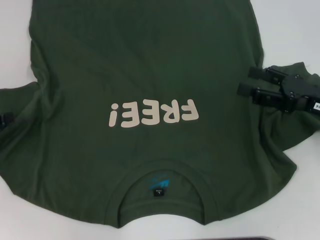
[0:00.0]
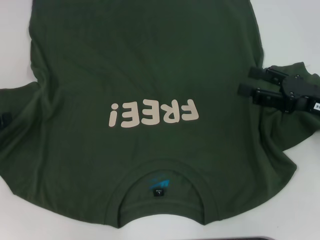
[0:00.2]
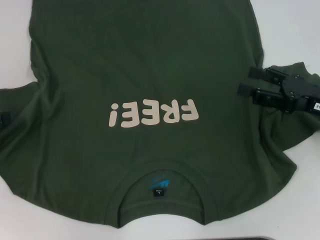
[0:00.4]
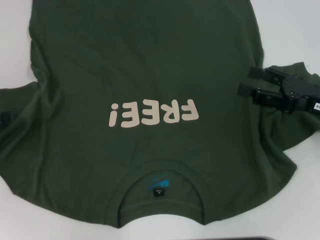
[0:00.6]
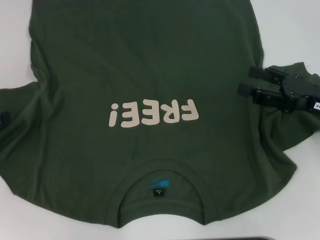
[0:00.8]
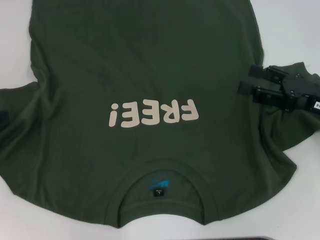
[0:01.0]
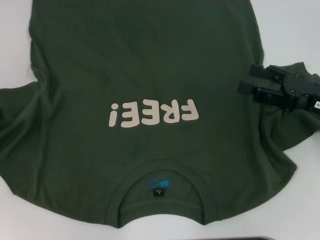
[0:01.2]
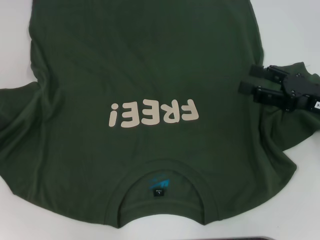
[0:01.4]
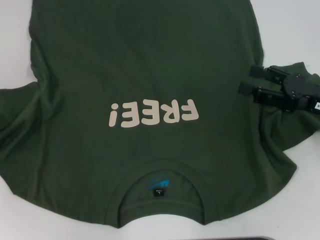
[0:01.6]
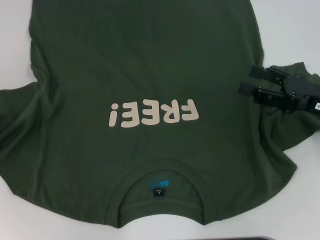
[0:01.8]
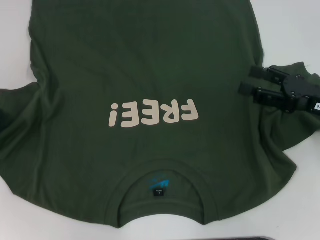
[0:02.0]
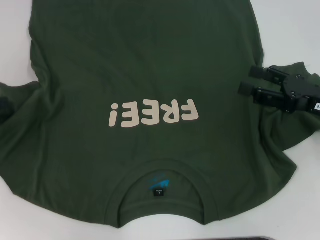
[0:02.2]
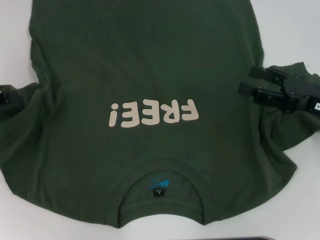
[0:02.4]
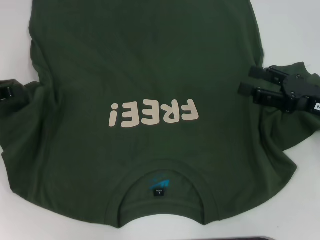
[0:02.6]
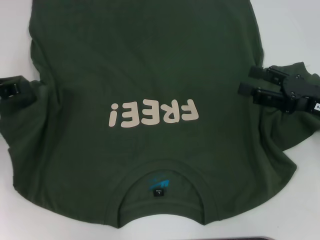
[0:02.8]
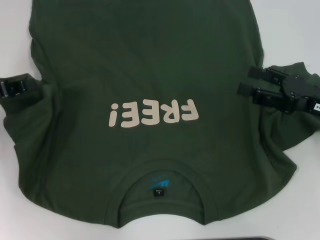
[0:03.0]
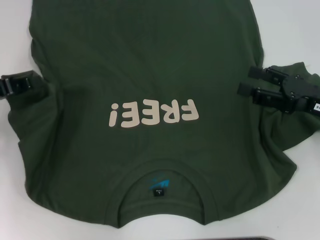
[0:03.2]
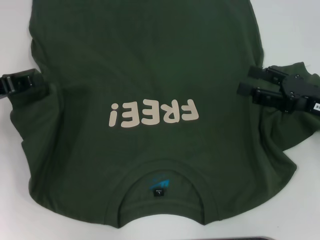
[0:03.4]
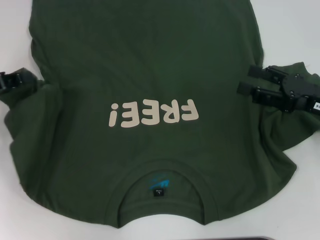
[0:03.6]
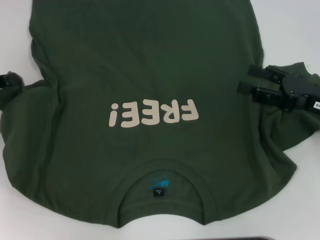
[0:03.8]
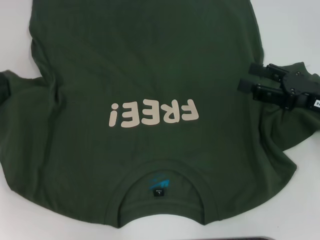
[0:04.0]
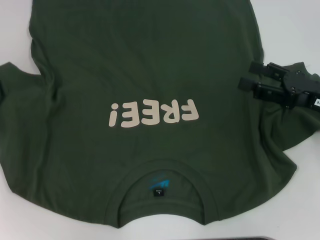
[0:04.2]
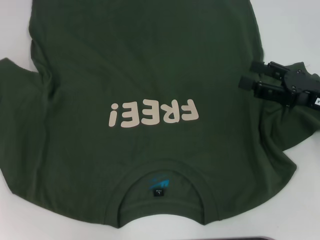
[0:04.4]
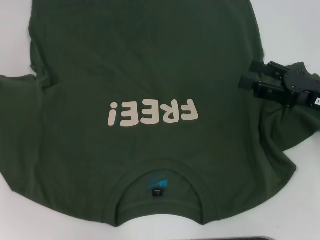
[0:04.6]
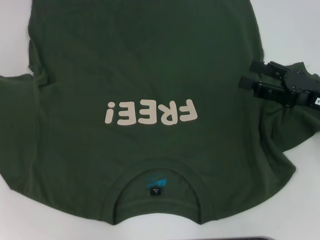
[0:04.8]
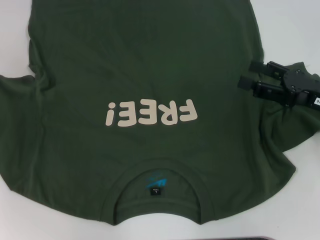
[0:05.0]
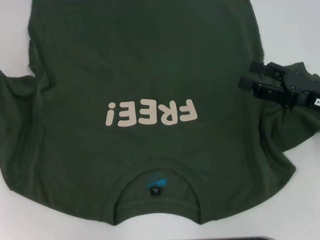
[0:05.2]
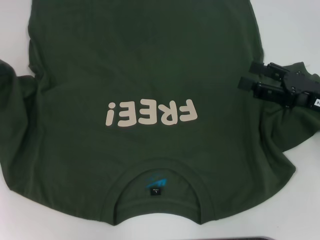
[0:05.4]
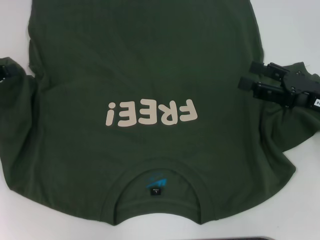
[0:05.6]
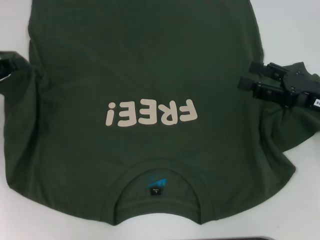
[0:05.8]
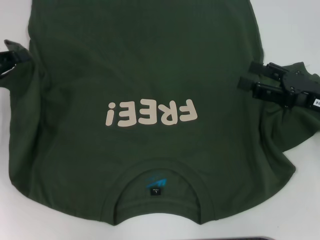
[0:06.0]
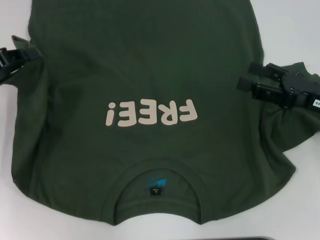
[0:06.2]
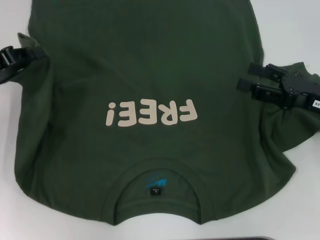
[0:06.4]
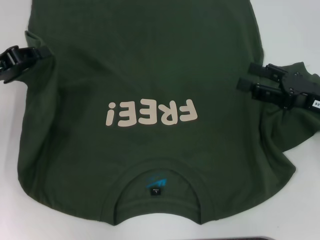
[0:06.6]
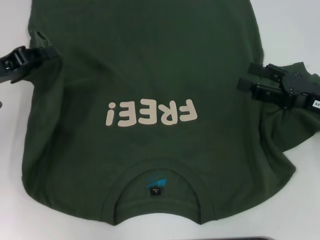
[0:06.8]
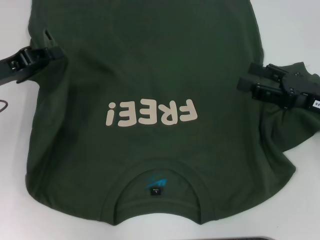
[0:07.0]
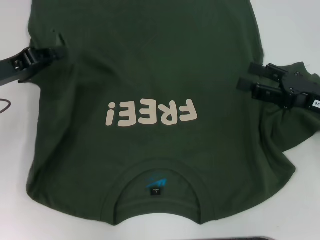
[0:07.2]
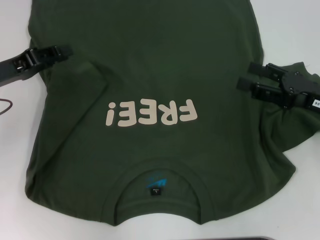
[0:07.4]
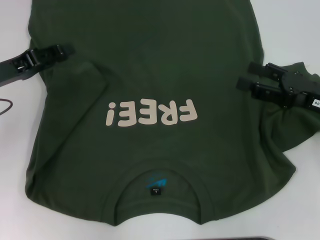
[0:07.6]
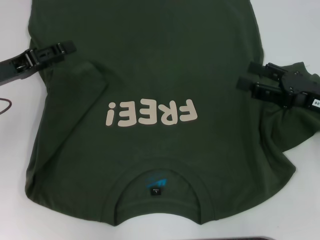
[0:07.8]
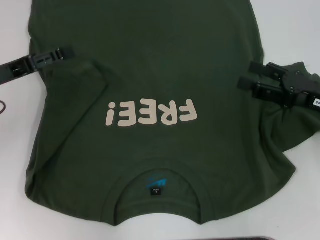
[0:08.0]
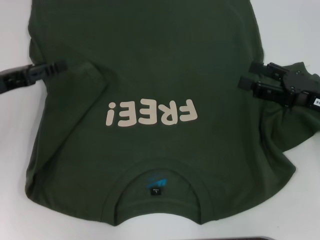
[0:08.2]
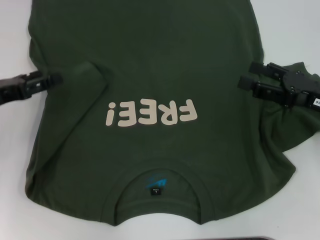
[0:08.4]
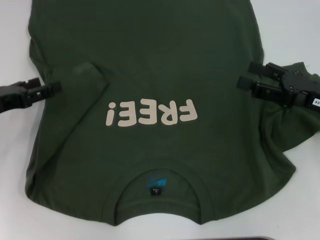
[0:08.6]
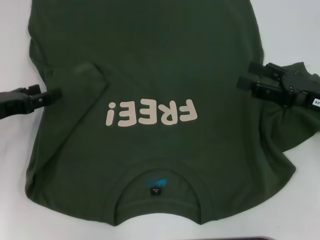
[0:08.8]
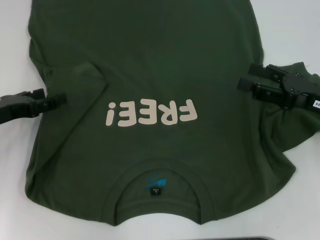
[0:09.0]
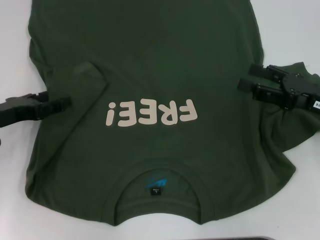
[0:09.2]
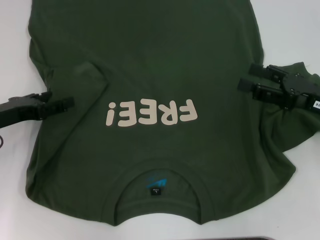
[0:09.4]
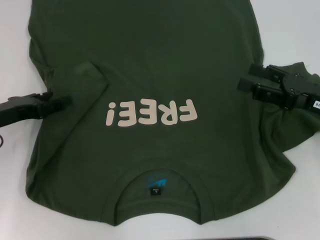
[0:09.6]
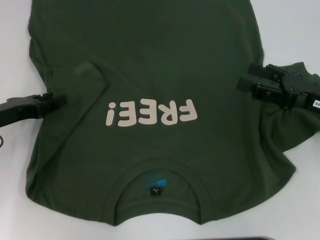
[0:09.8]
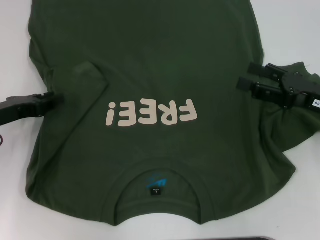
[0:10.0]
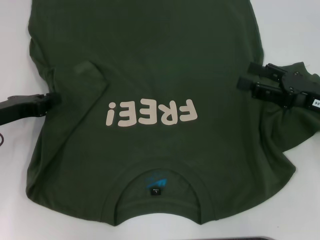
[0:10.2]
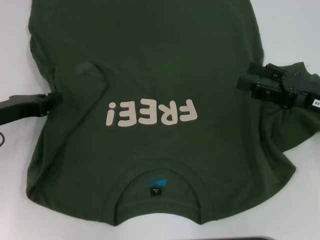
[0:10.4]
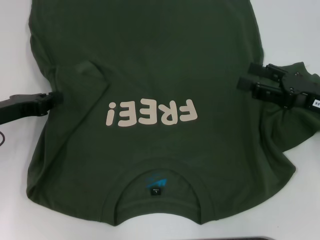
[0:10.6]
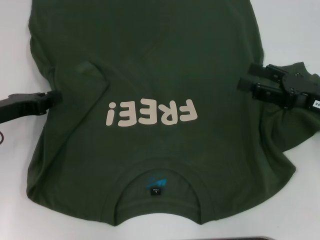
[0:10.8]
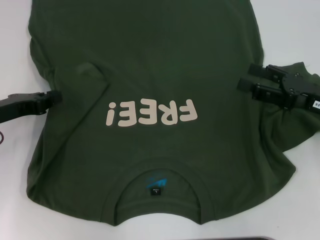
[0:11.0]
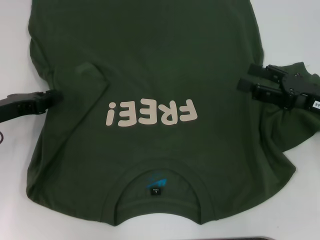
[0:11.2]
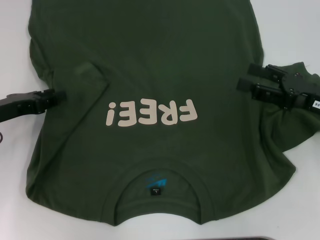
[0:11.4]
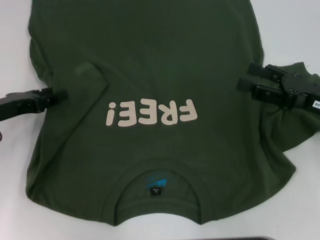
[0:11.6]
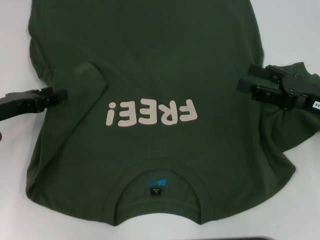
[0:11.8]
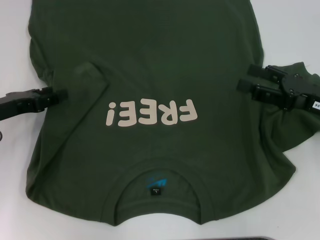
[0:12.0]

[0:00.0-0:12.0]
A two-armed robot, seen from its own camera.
0:01.6 to 0:03.0: The left gripper ends up approximately 5 cm from where it was.
0:06.0 to 0:07.6: The grippers stay close to where they were, moving slightly.
0:07.6 to 0:09.0: The left gripper moves some 5 cm, and opens its fingers.
0:09.0 to 0:10.4: The left gripper closes its fingers.
0:10.4 to 0:12.0: The left gripper opens up.

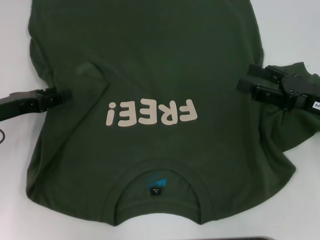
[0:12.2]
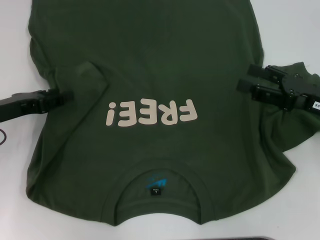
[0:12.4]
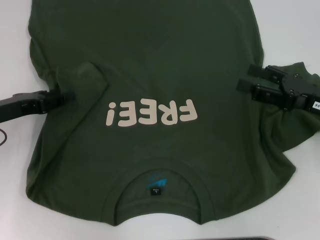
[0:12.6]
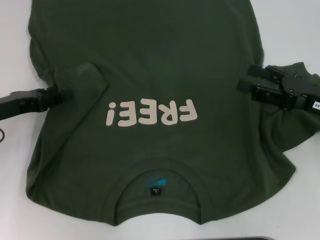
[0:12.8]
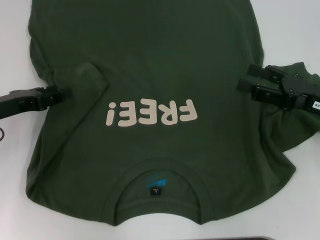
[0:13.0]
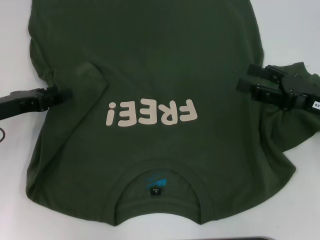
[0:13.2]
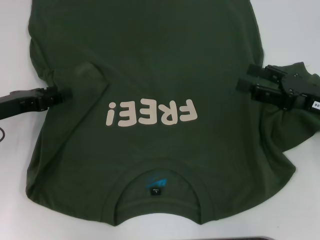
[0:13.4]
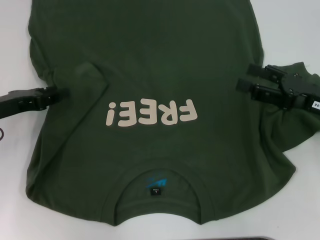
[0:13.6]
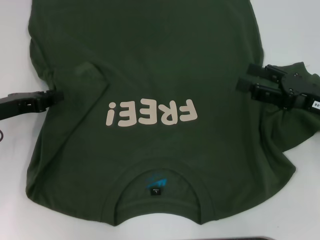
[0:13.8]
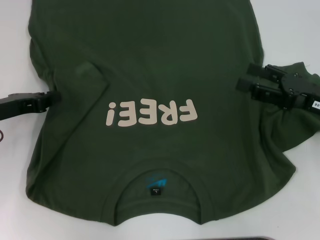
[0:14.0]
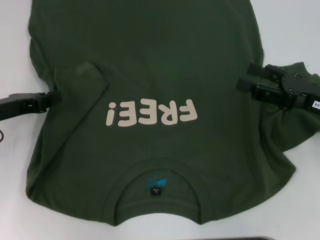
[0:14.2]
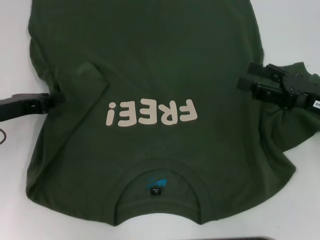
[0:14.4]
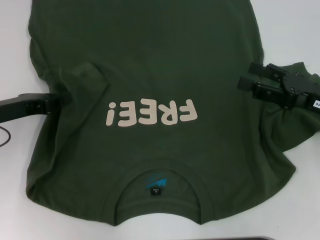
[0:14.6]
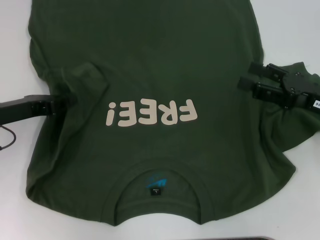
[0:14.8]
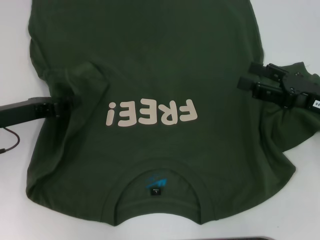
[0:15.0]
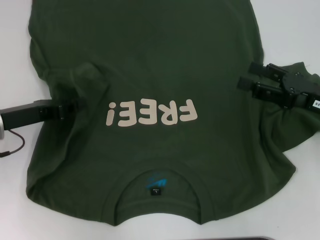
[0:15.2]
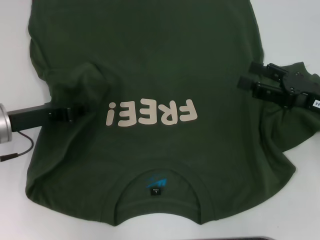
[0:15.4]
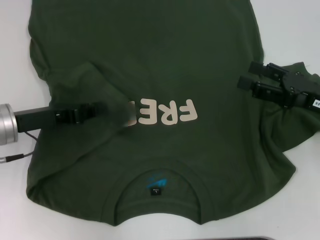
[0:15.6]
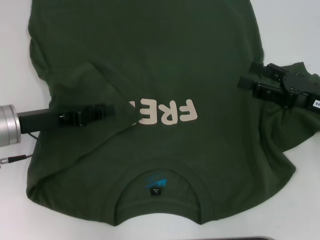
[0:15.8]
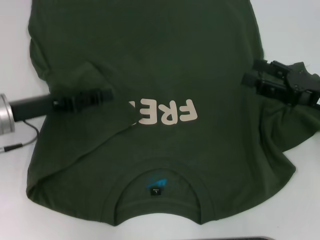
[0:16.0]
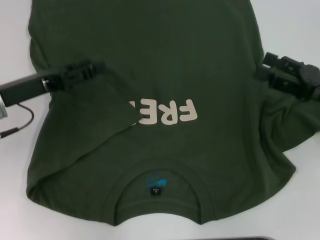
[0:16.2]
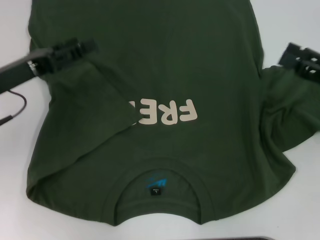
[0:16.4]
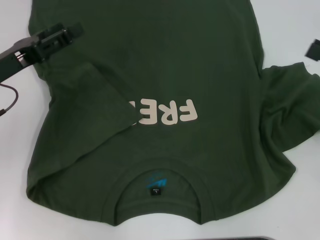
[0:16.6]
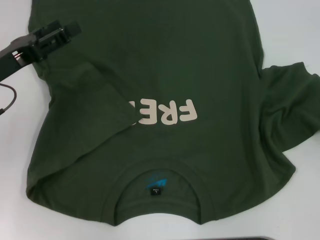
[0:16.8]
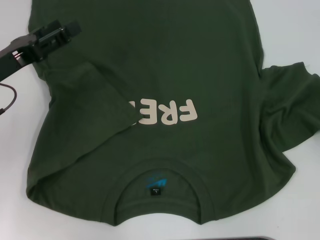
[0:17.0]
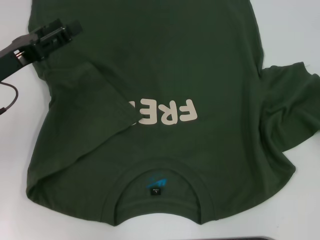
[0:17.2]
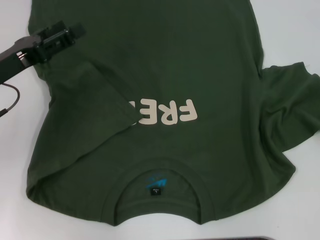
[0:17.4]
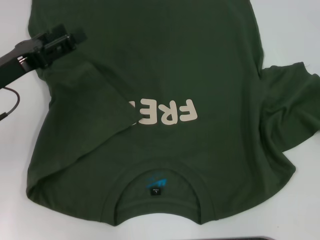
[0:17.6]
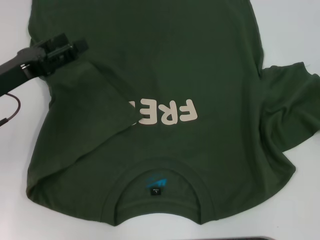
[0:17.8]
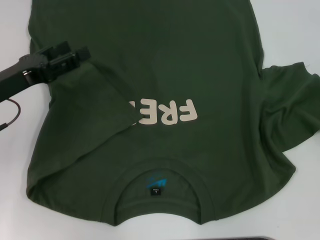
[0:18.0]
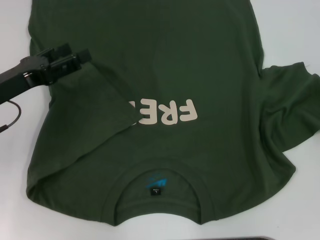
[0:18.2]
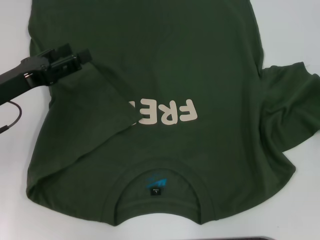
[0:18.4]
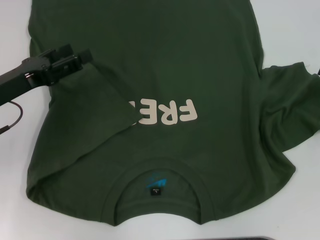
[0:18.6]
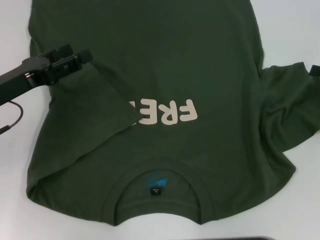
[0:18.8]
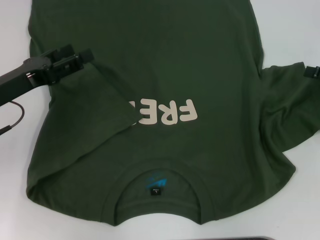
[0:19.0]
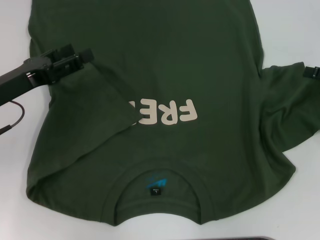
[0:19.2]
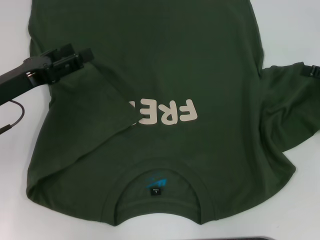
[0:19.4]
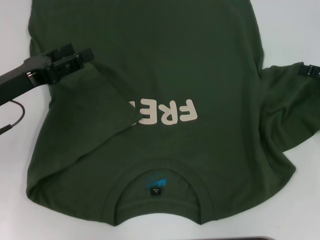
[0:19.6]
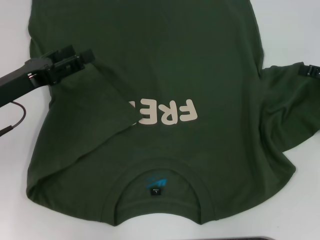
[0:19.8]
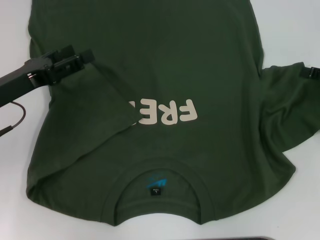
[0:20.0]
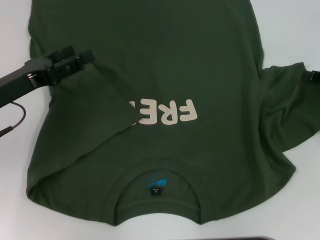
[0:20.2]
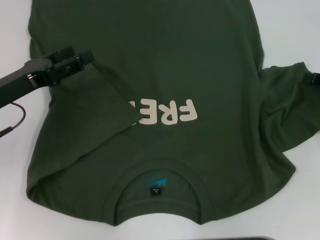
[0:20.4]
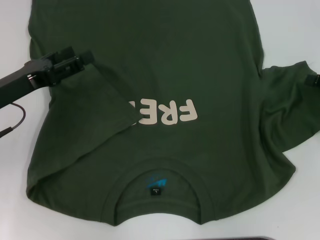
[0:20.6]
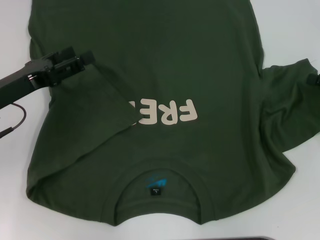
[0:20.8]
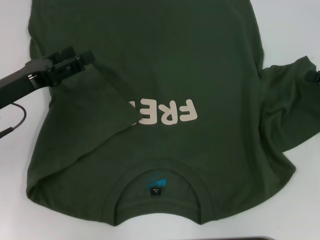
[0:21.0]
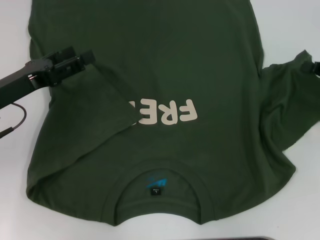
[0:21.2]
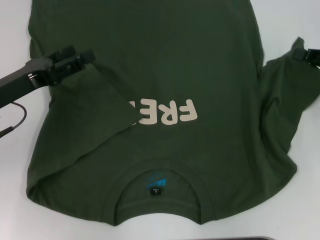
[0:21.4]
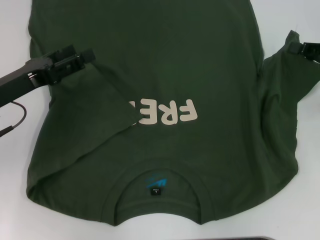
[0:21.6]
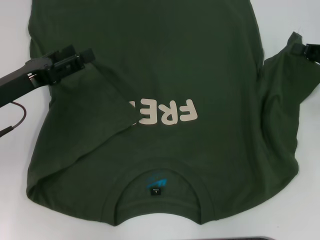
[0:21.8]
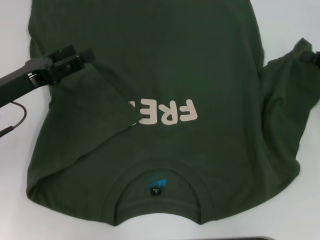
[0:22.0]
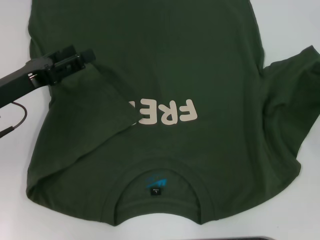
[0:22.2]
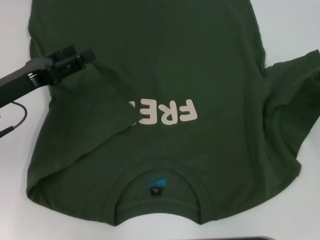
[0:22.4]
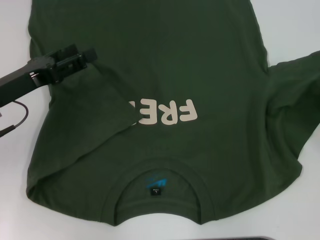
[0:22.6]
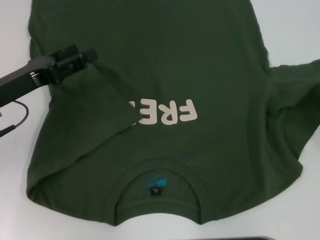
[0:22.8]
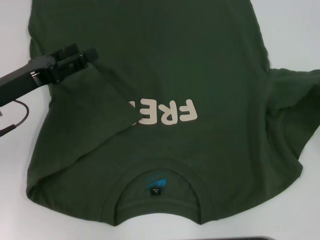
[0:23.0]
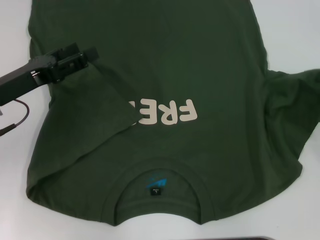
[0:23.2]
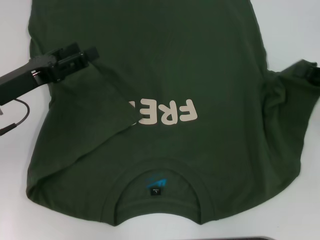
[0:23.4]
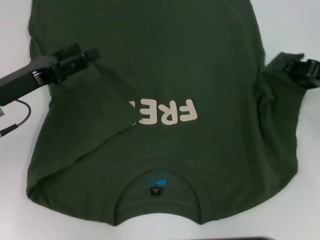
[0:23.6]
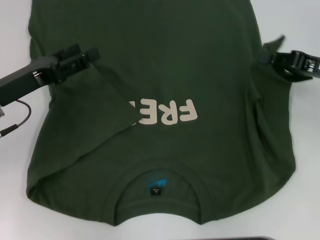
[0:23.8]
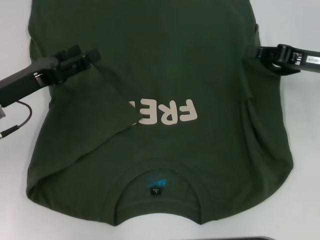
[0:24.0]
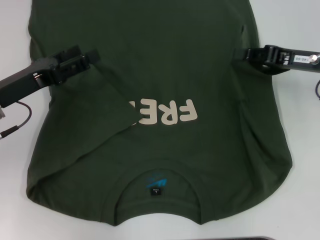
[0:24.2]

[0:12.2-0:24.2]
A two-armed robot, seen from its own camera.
Step, 0:12.2 to 0:15.8: Fold the bottom left sleeve with your left hand.
0:12.2 to 0:13.8: Both grippers stay put.
0:13.8 to 0:15.2: The left gripper closes.
0:15.2 to 0:16.6: The right gripper moves to the right, roughly 5 cm, while the left gripper opens.
0:19.8 to 0:21.2: The right gripper closes up.
0:21.2 to 0:22.6: The right gripper ends up about 5 cm from where it was.
0:22.6 to 0:24.2: The right gripper shifts some 15 cm to the left and forward.
